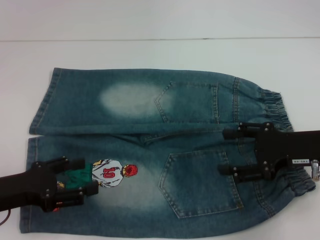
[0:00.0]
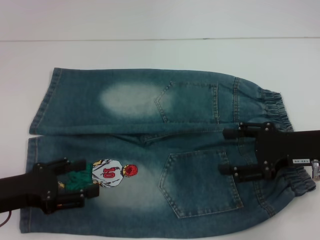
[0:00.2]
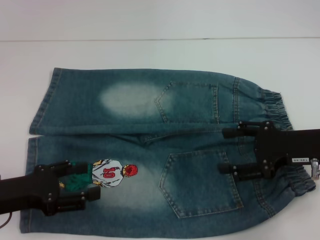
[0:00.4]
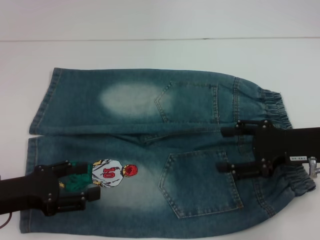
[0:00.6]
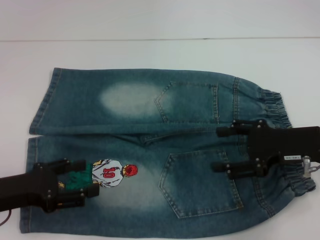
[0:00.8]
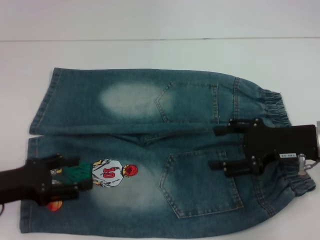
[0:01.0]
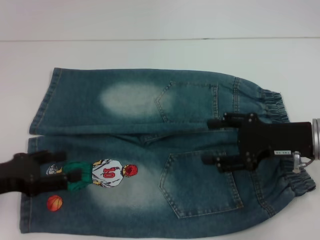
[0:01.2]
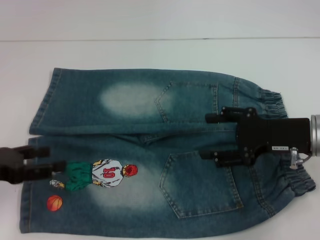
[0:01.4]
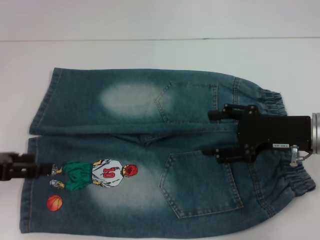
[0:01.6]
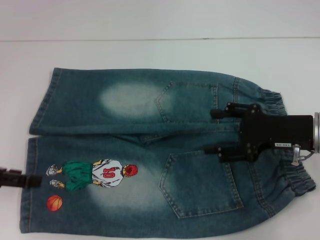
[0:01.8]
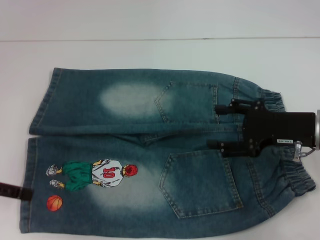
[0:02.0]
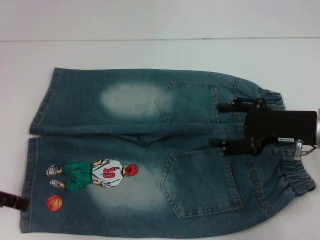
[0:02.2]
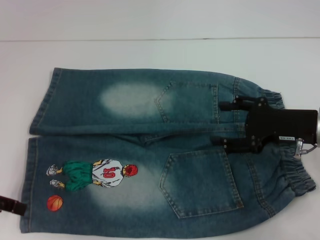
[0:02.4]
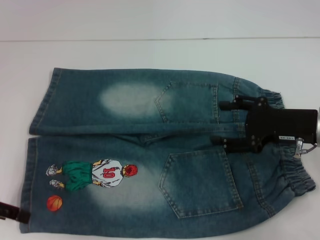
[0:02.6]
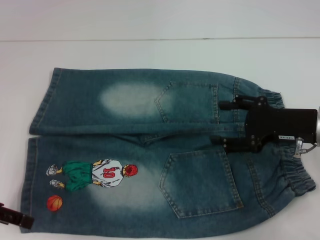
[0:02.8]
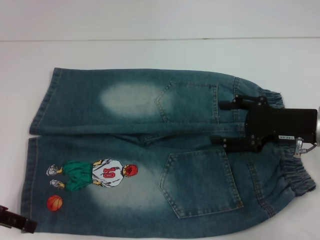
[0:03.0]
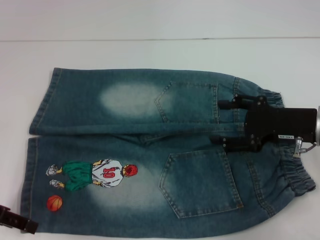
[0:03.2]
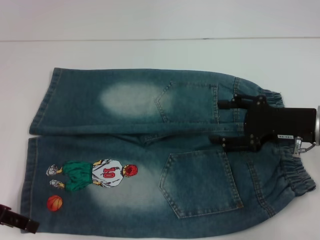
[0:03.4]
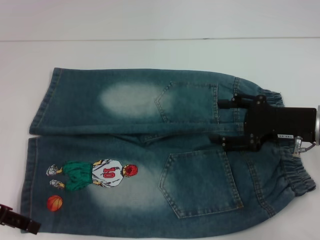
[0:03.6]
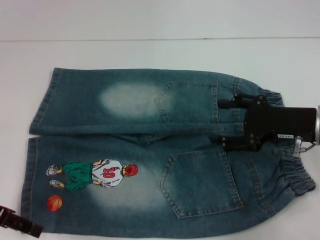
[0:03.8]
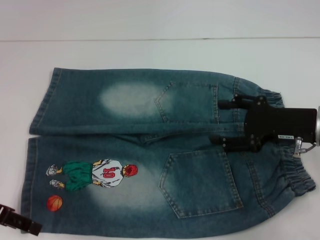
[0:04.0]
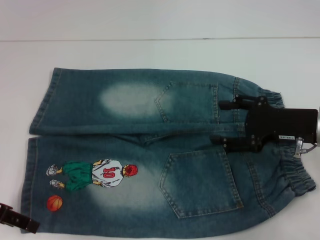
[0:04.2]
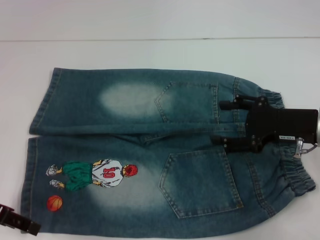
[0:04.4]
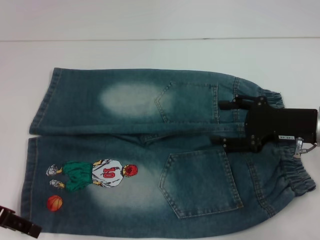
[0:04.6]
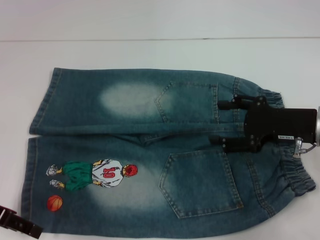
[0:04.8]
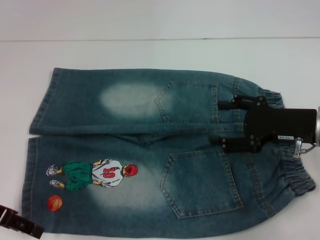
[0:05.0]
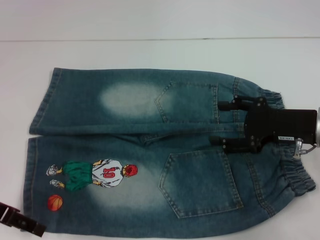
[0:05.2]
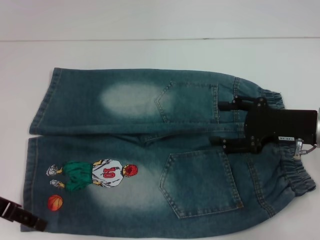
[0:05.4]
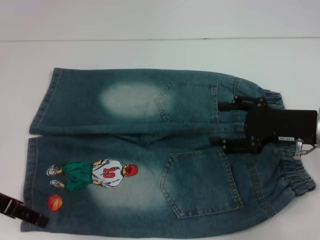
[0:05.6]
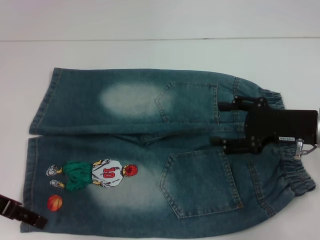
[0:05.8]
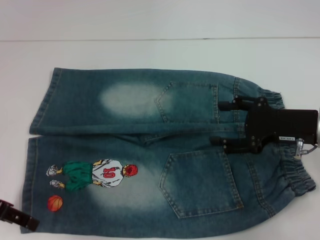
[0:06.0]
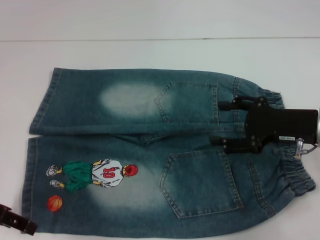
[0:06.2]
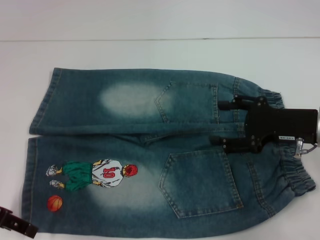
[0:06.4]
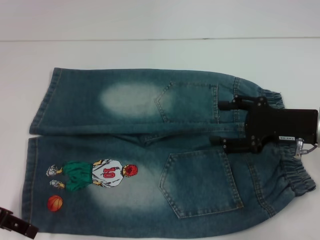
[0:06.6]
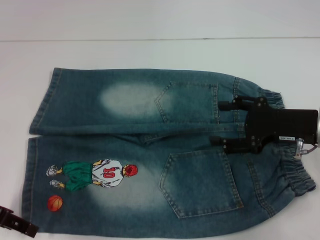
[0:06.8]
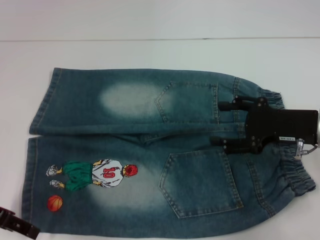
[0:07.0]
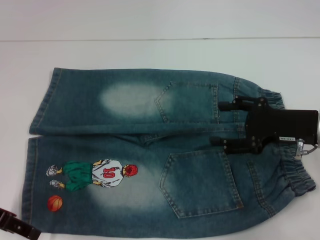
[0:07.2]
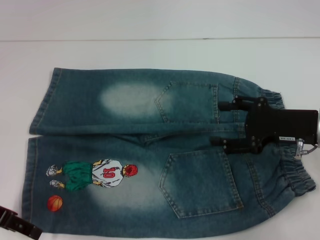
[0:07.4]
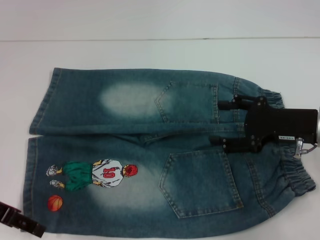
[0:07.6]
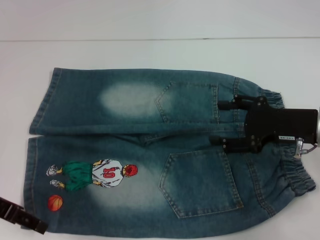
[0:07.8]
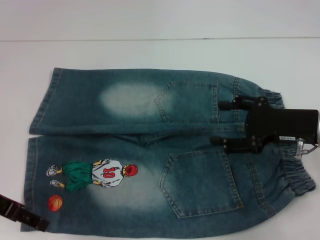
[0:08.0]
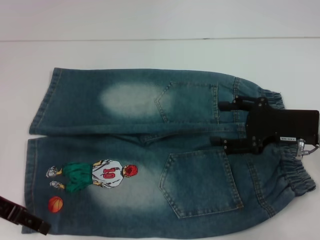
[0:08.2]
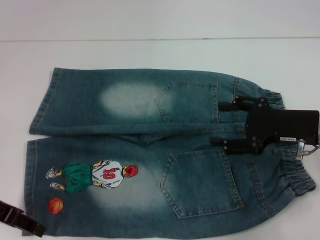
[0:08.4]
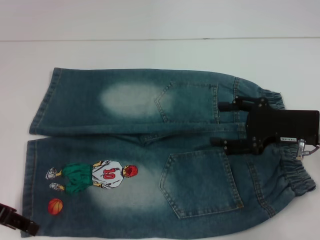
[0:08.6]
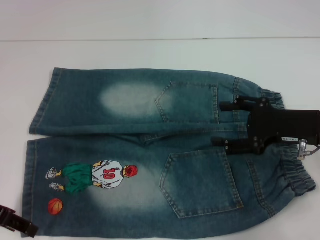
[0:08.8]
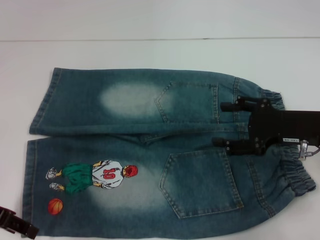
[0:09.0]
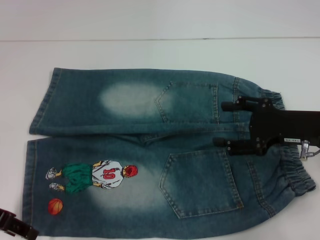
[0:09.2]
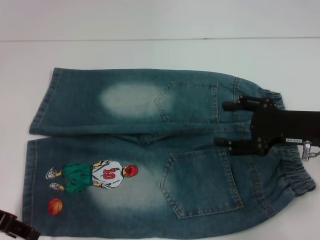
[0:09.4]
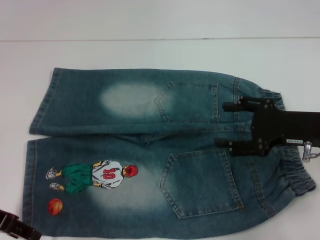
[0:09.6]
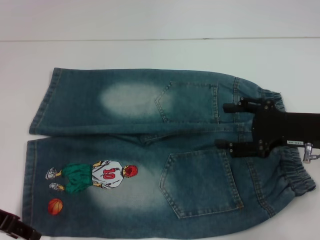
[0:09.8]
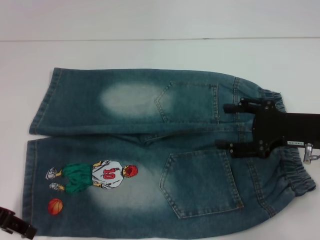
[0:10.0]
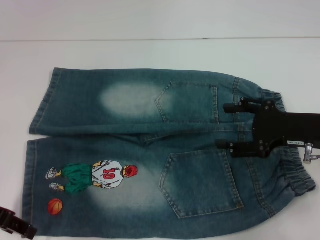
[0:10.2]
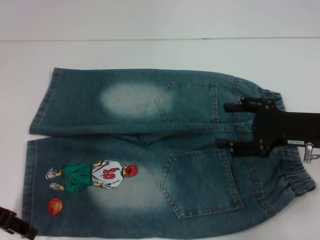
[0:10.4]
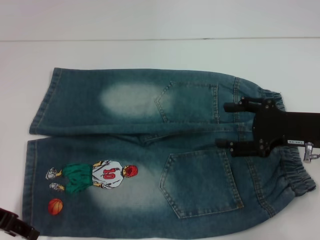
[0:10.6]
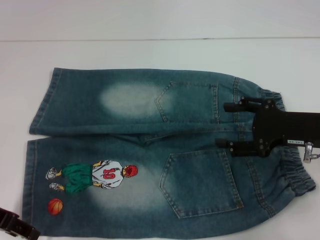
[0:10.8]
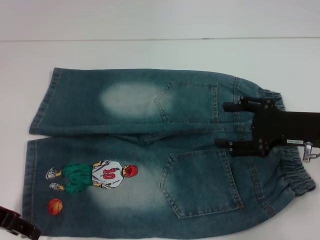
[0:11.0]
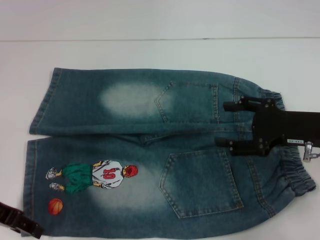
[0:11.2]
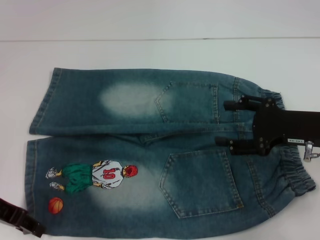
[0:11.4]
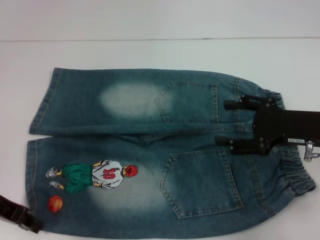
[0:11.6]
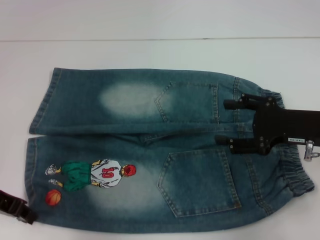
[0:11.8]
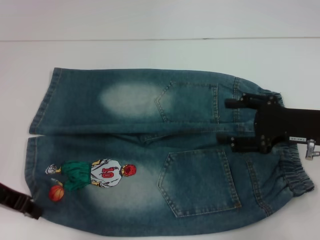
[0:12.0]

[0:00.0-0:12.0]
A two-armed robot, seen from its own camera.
Step, 0:00.0 to 0:11.6: Grab the lower left pant leg with your left hand.
0:00.0 to 0:01.6: The left gripper goes approximately 5 cm upward.
0:06.0 to 0:07.6: Neither gripper changes place.
0:07.6 to 0:10.4: Both grippers stay put.
0:10.4 to 0:12.0: The left gripper closes up.

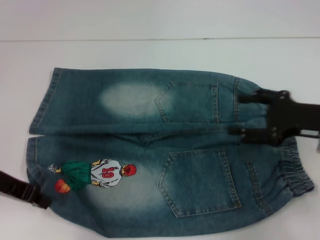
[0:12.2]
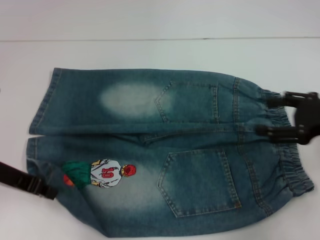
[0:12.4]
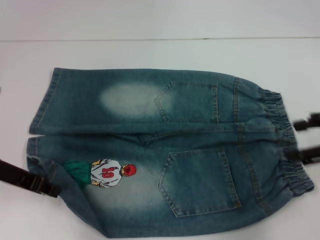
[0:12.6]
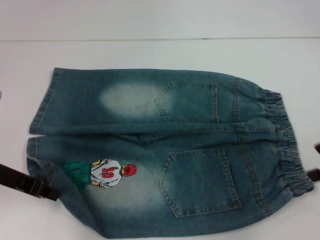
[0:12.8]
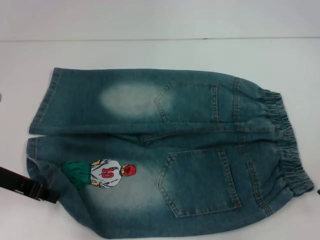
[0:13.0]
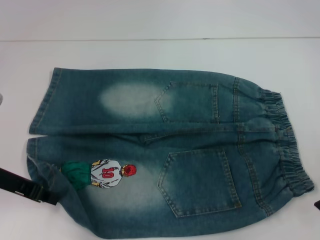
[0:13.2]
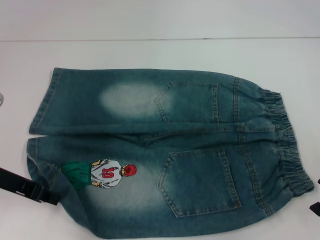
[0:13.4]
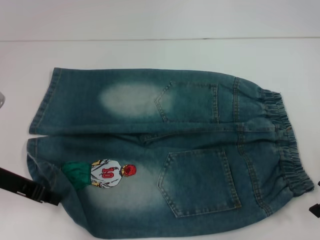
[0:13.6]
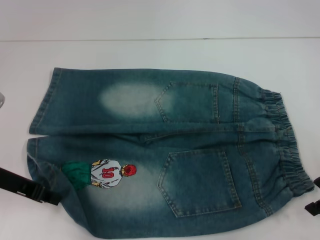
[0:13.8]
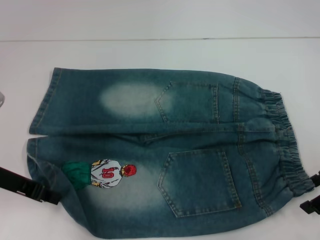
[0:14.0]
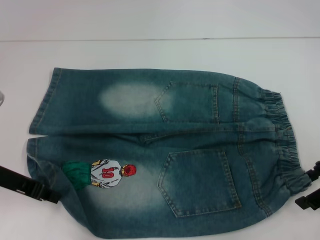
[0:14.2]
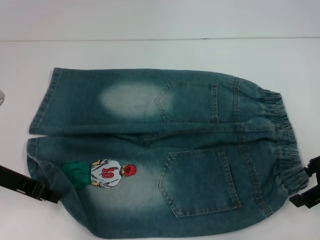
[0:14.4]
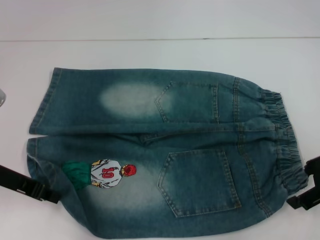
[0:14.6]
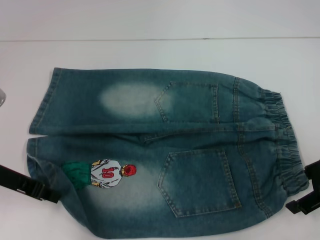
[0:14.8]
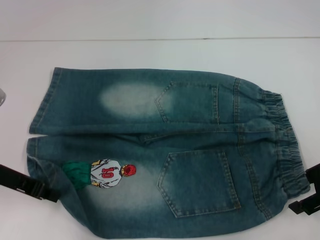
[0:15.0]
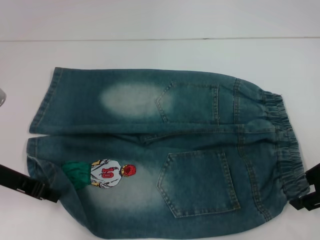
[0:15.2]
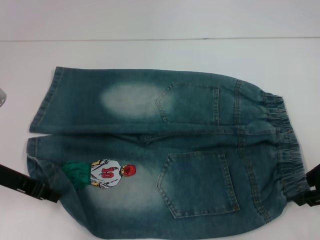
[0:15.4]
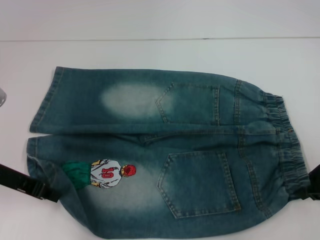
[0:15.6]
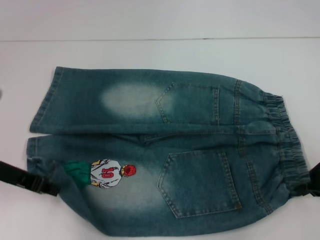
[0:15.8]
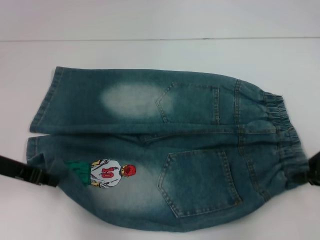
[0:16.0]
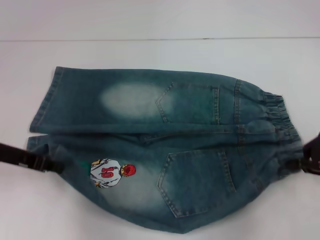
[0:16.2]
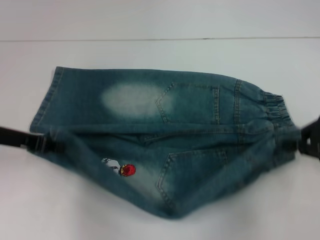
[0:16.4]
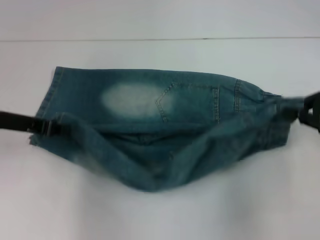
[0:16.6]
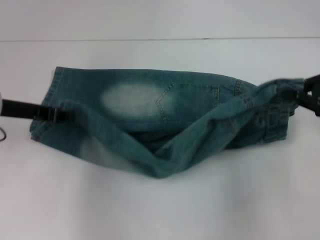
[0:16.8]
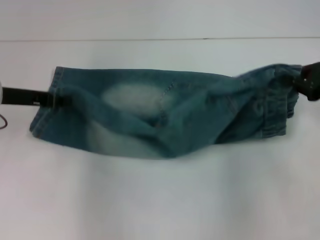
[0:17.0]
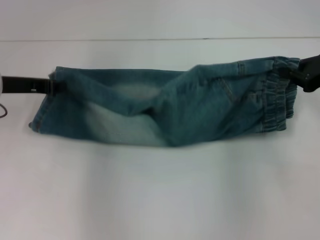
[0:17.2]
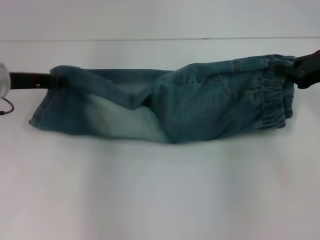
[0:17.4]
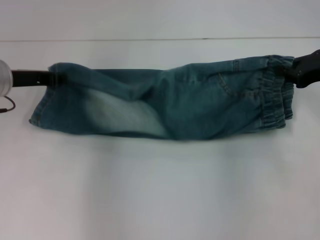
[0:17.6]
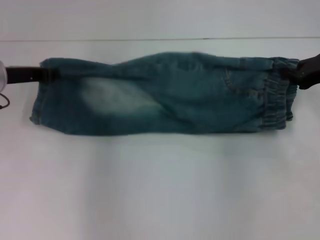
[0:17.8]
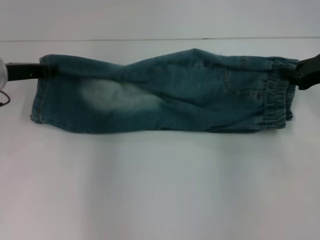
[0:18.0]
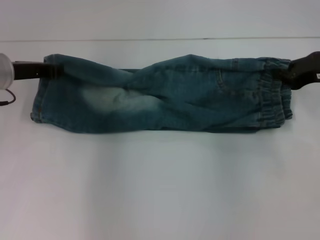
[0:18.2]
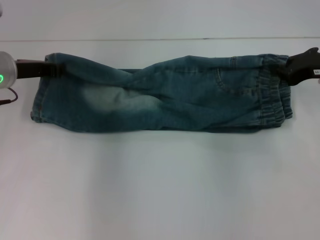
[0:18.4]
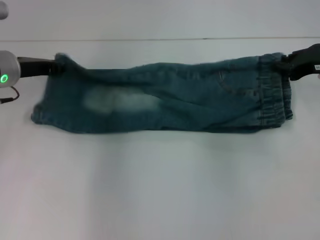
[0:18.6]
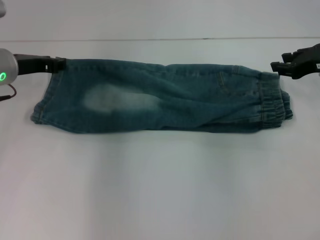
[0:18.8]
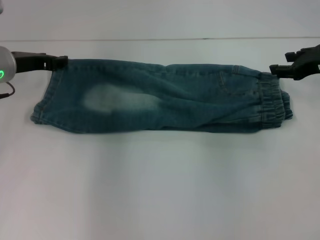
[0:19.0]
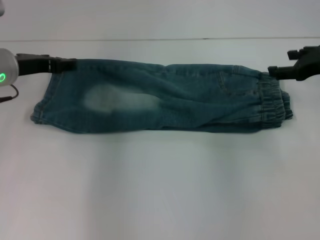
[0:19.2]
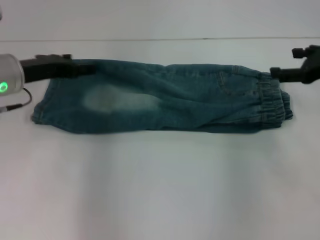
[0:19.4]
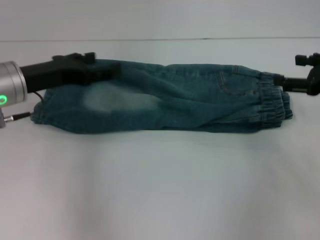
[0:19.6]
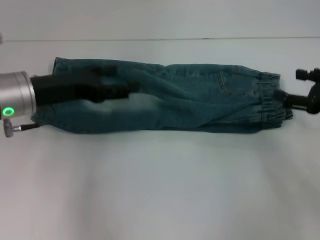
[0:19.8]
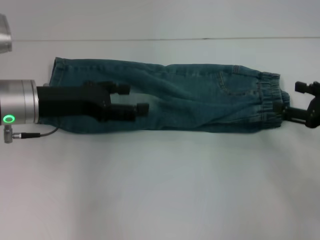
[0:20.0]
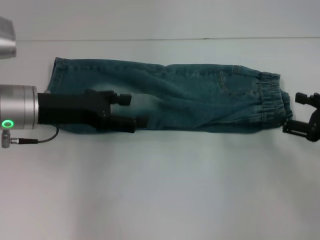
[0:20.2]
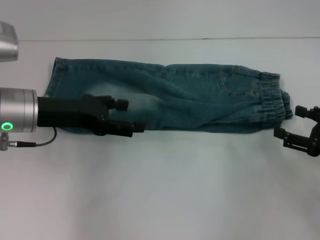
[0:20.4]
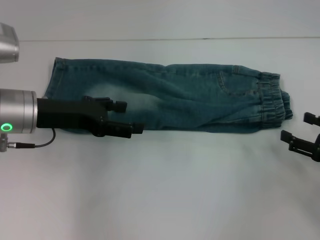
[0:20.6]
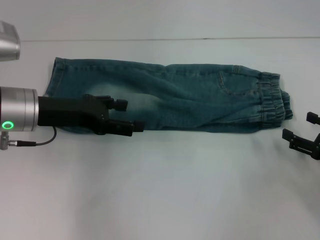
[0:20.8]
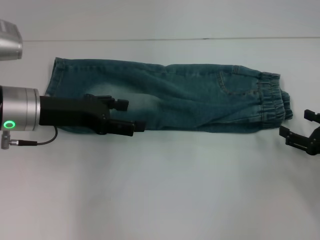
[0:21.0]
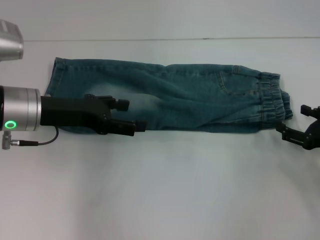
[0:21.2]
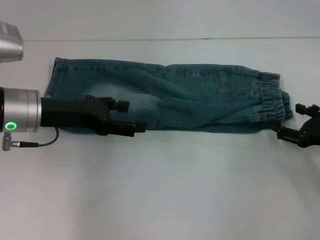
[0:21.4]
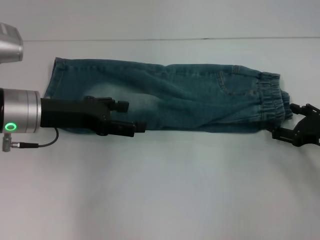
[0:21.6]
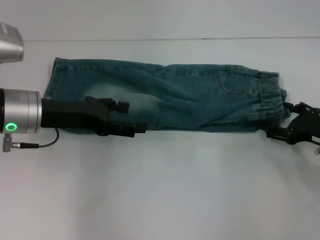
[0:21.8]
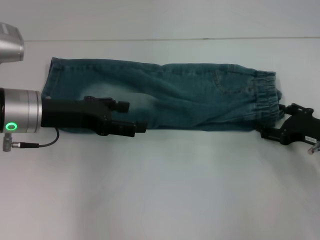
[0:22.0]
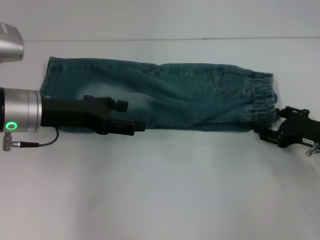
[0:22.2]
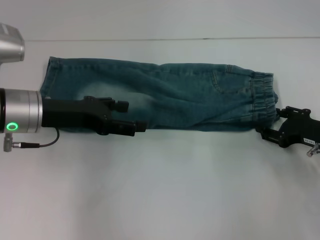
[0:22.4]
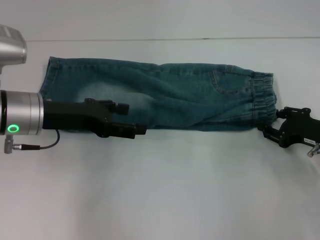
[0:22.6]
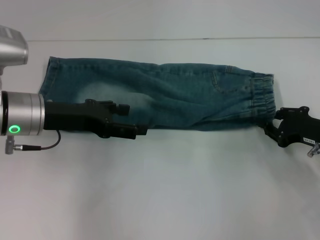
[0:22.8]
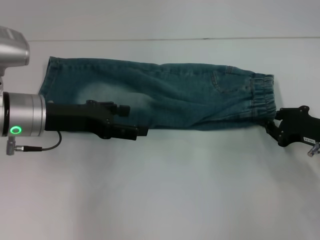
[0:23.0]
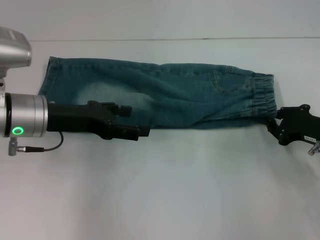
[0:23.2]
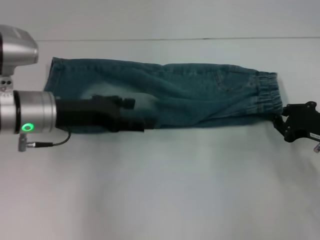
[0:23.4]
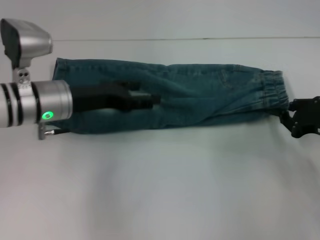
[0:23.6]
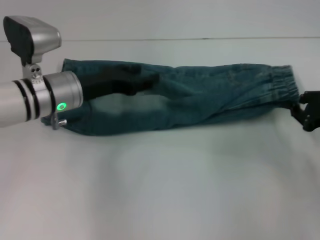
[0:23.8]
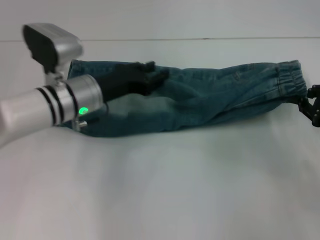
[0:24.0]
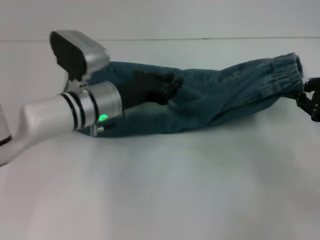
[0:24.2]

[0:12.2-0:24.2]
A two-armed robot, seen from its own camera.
Step, 0:12.2 to 0:15.6: Hold the lower right waistband with your right hand.
Step, 0:15.8 to 0:18.6: Fold upward with your left hand.
Step, 0:18.8 to 0:23.0: Grab the waistband with your right hand.
0:13.8 to 0:15.2: The grippers make only small movements.
0:15.2 to 0:16.6: The right gripper closes up.
0:16.6 to 0:18.2: Both grippers travel together forward, some 5 cm.
0:18.2 to 0:19.8: Both grippers move backward, roughly 5 cm. The right gripper opens its fingers. The left gripper opens its fingers.
0:19.8 to 0:21.2: The right gripper heads downward, covering approximately 10 cm.
0:21.2 to 0:22.6: The right gripper closes.
0:22.6 to 0:24.2: The left gripper travels to the right and downward by about 10 cm, and closes; the right gripper goes some 10 cm upward, and closes up.
